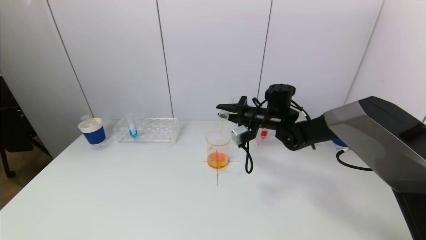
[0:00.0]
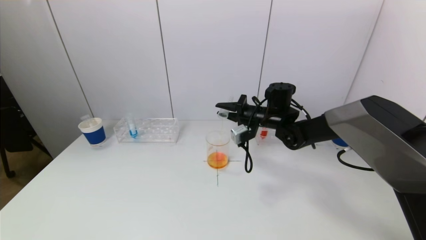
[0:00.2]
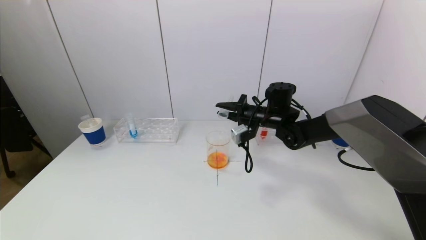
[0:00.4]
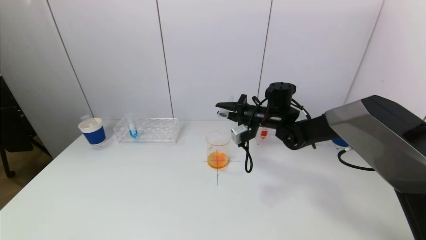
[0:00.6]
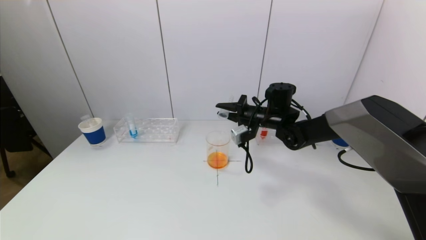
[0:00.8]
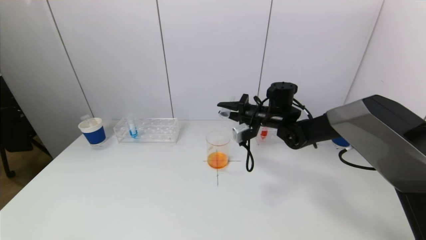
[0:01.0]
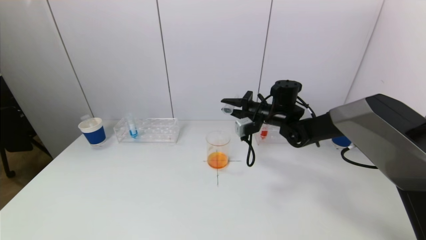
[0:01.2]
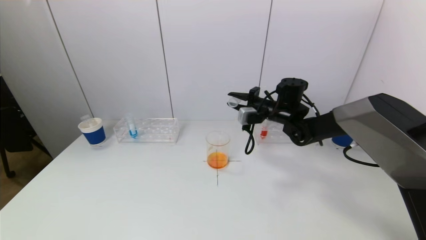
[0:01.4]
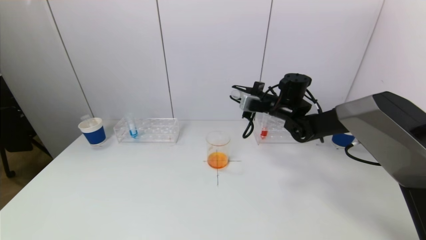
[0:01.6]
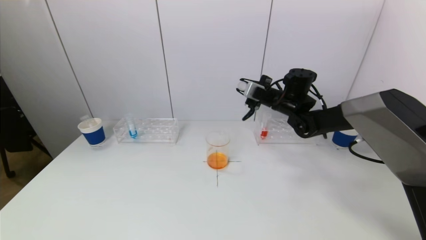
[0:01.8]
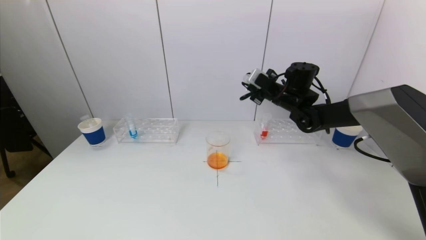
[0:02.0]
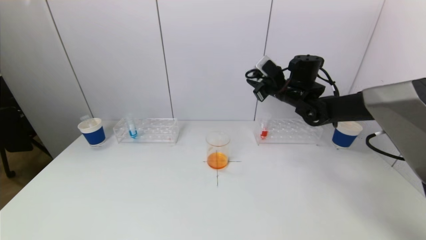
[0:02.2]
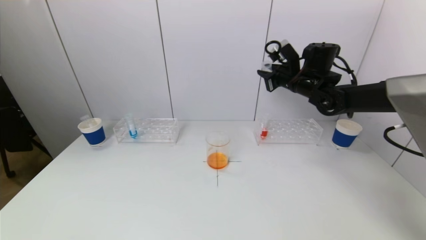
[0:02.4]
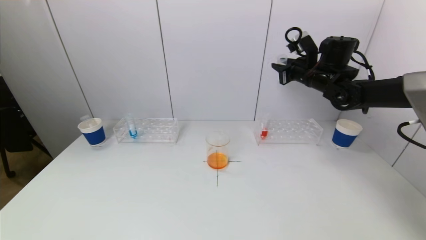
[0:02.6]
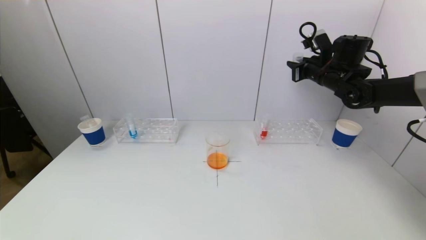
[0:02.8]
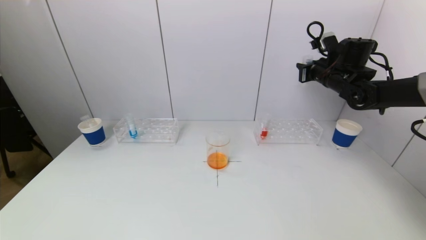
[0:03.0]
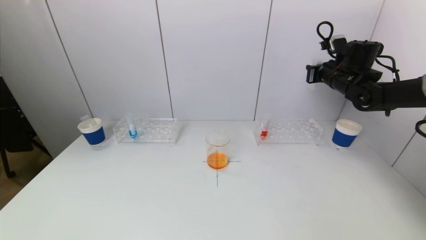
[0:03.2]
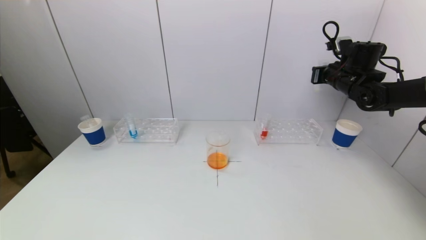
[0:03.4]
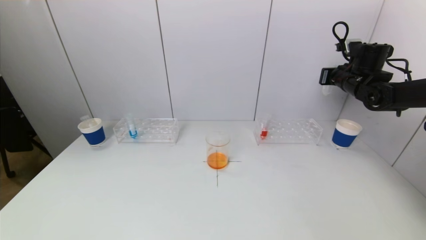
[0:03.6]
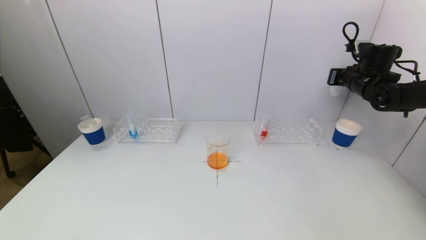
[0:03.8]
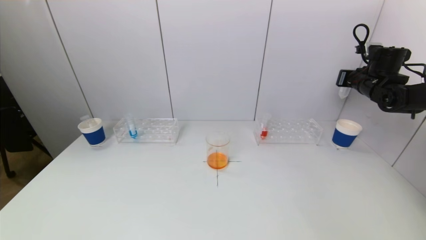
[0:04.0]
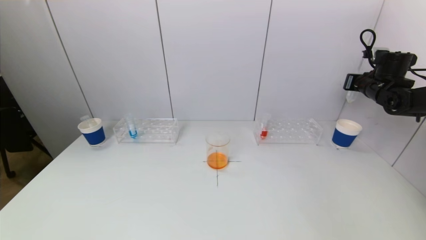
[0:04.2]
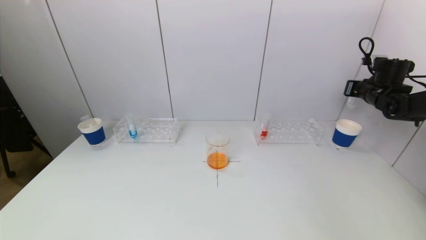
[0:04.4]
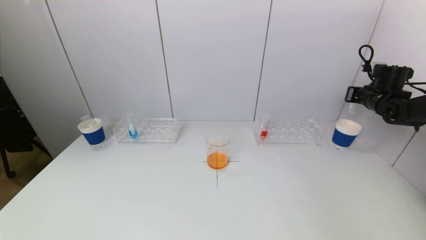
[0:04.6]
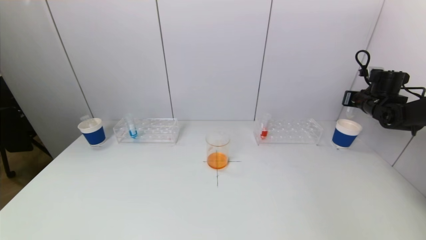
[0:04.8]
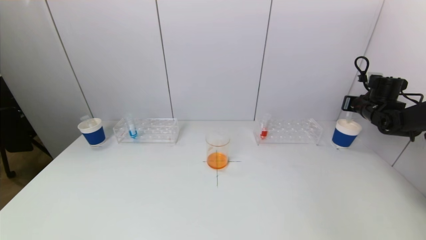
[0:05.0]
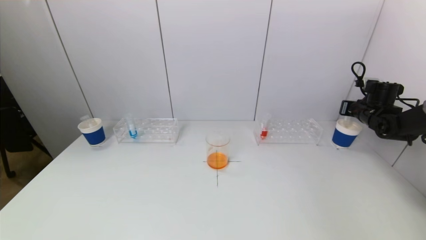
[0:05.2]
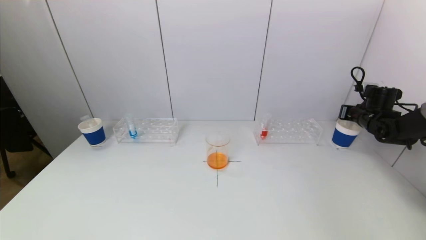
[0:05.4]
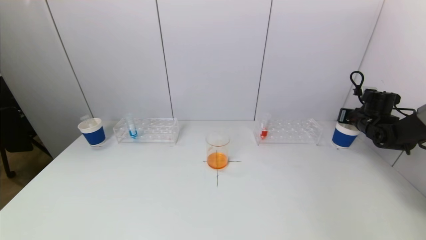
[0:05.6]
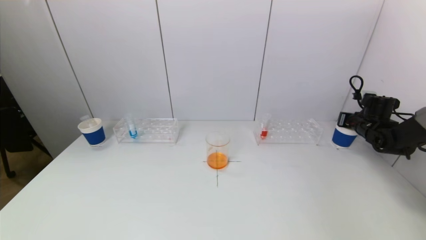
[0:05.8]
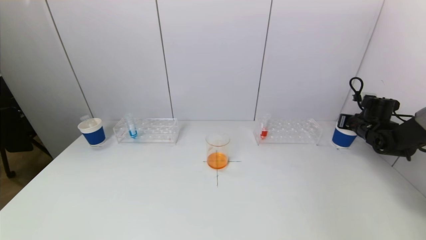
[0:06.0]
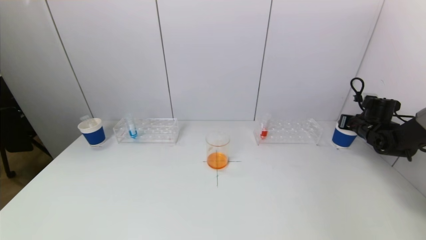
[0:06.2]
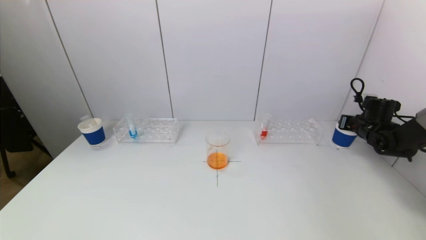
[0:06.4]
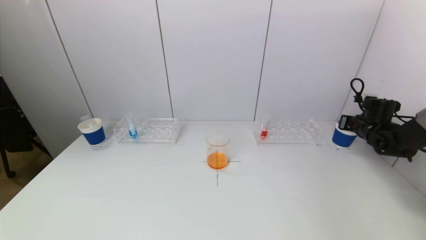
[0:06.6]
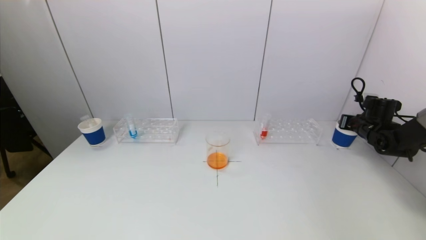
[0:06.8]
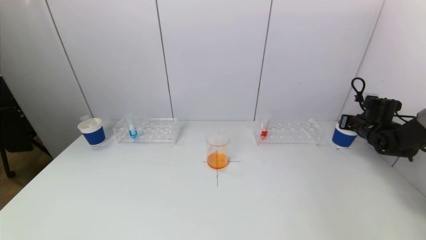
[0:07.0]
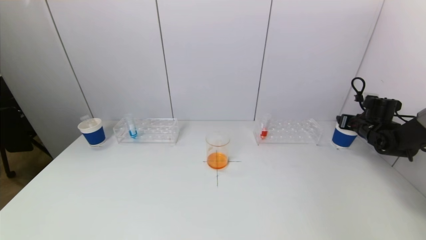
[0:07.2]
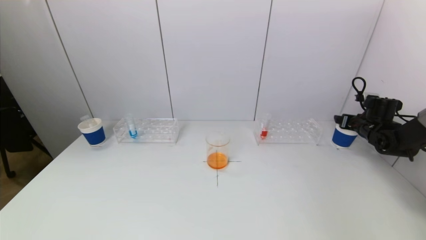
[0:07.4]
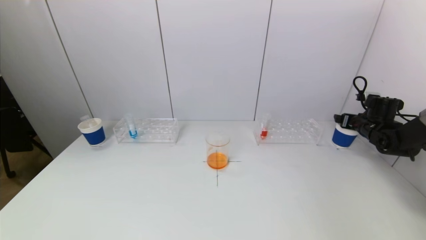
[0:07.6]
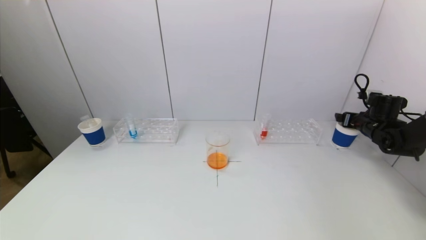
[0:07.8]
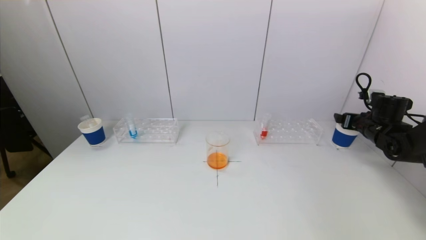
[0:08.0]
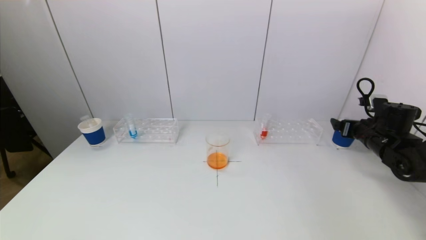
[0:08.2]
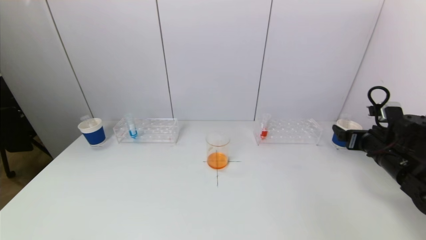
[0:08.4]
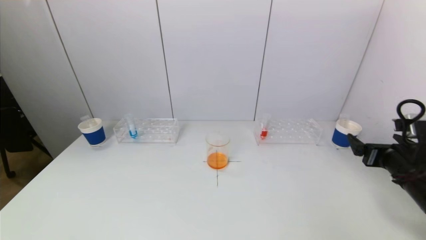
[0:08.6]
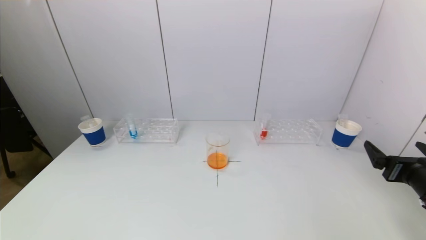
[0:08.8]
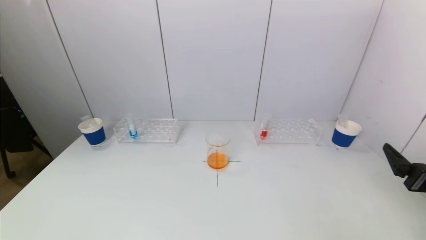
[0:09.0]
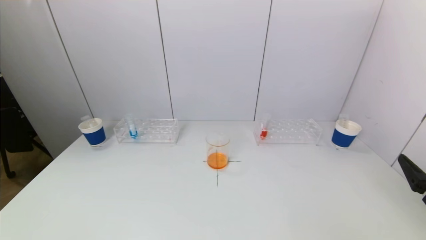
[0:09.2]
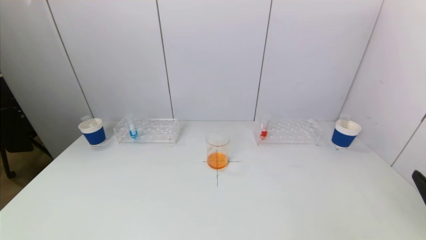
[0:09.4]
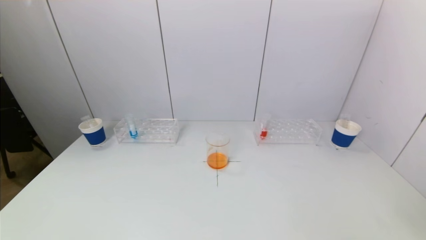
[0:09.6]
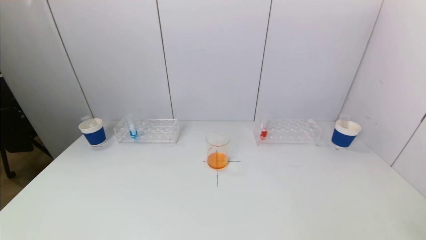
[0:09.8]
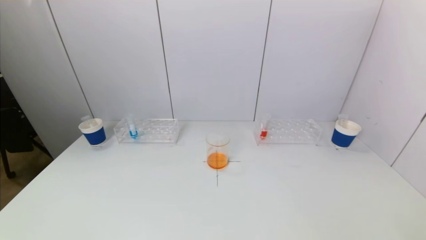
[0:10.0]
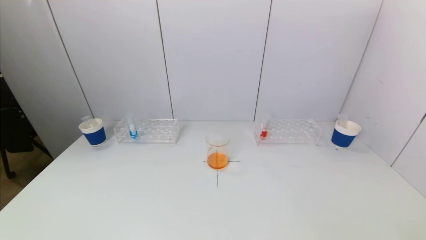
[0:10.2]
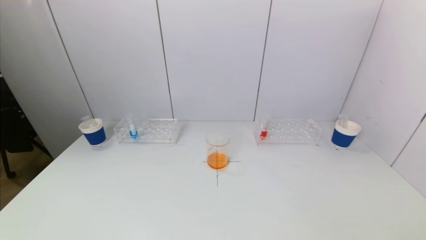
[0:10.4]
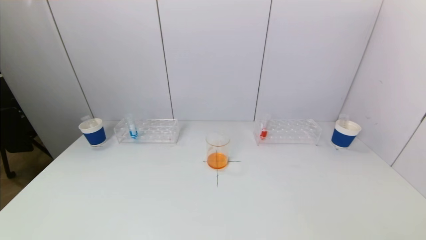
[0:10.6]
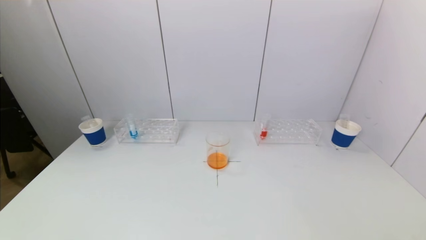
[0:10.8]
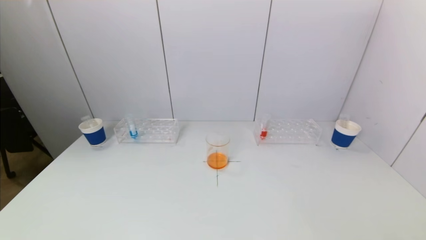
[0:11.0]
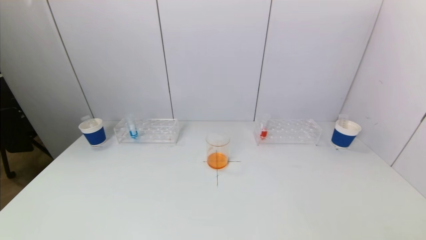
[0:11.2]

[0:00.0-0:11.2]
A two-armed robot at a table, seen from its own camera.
Task of the whole recording: pick up a test tube with pigment on left test tube rack and a test tube with pigment on right test tube rack by grippers and pour them into the beaker.
Step, 0:01.2 to 0:08.2: Place the test tube into the paper cup with the right gripper.
0:01.6 to 0:03.2: The right gripper moves to the right and upward, some 15 cm.
0:03.2 to 0:04.8: The right gripper heads to the right and downward, covering roughly 15 cm.
0:04.8 to 0:06.4: The right gripper shifts approximately 5 cm downward.
0:06.4 to 0:08.0: The right gripper shifts by approximately 5 cm, and opens up.
0:08.0 to 0:09.6: The right gripper is displaced backward by about 35 cm.

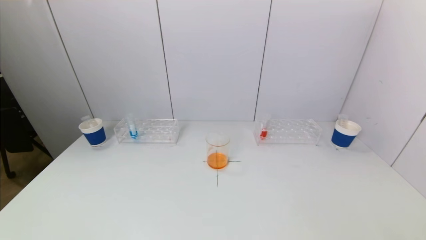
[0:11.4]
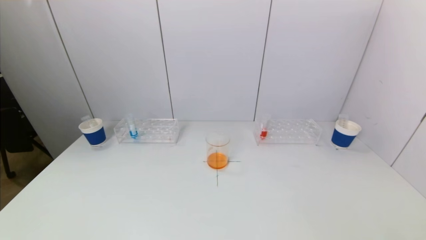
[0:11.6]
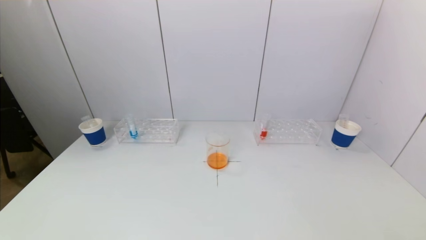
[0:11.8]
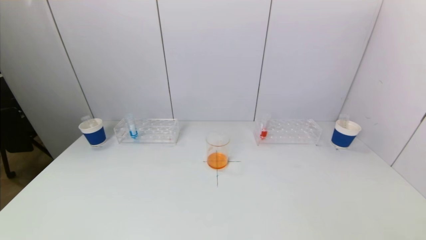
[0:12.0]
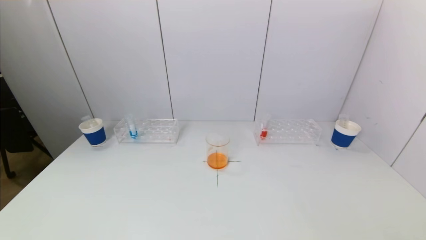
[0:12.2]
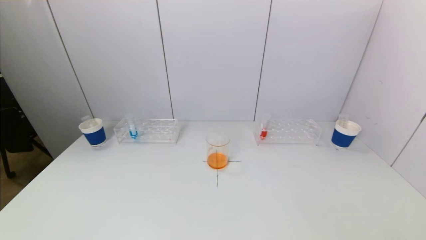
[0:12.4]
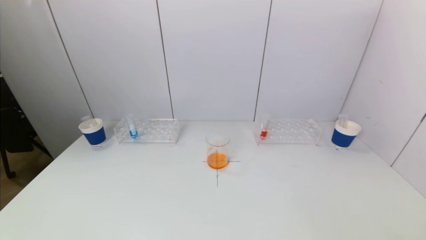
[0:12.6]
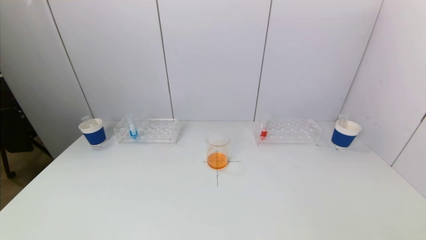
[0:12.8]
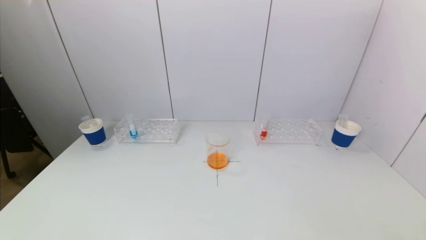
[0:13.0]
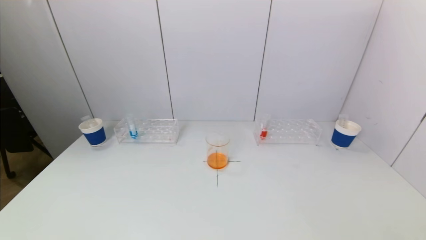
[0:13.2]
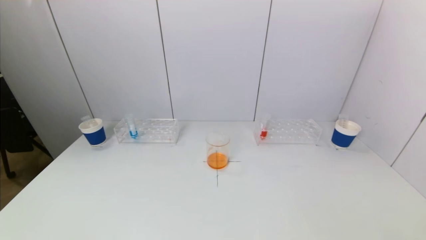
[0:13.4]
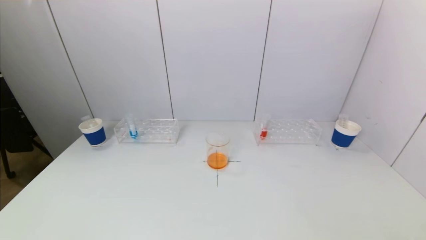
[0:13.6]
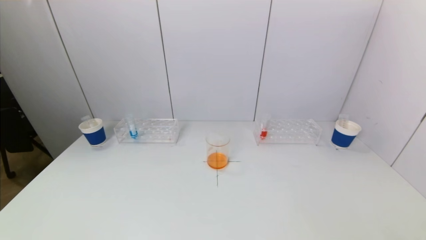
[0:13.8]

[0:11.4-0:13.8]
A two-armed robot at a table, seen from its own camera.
Task of the whole recording: pick up a test tube with pigment on left test tube rack and a test tube with pigment on right test tube rack by grippers and pour them into the beaker.
0:11.4 to 0:13.8: Both grippers stay put.
